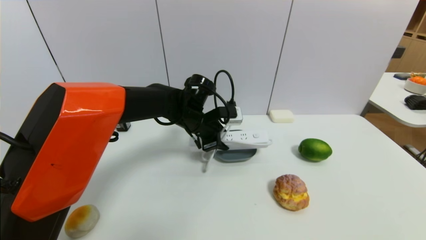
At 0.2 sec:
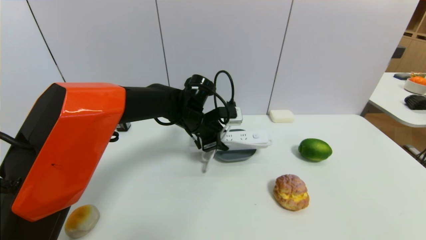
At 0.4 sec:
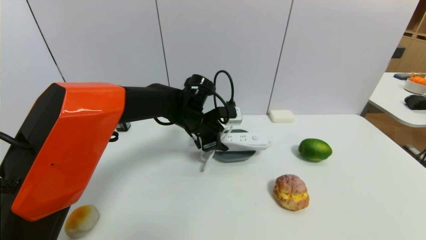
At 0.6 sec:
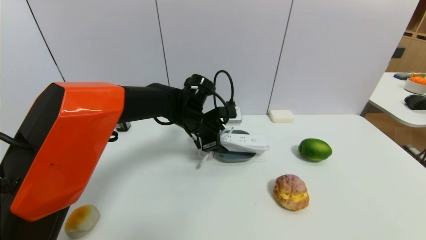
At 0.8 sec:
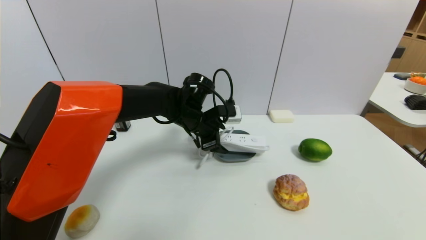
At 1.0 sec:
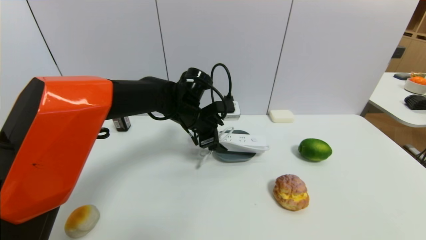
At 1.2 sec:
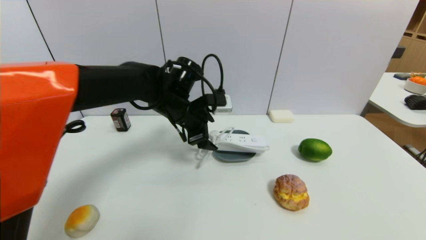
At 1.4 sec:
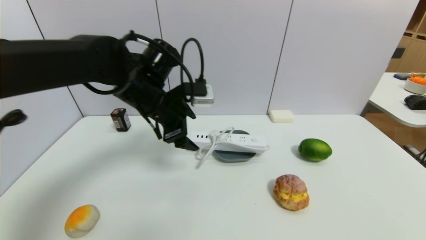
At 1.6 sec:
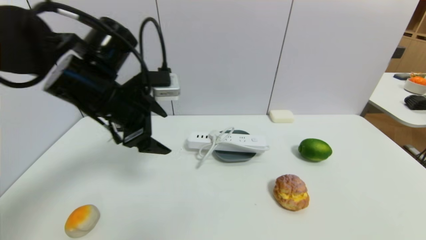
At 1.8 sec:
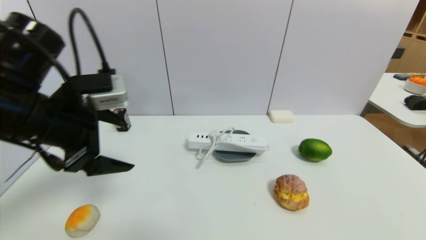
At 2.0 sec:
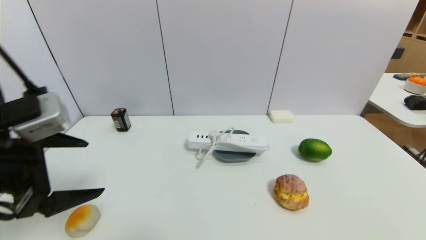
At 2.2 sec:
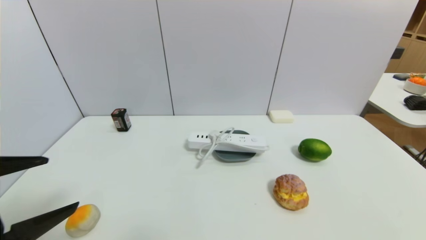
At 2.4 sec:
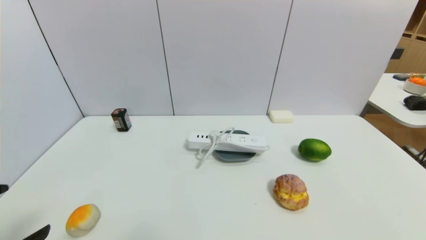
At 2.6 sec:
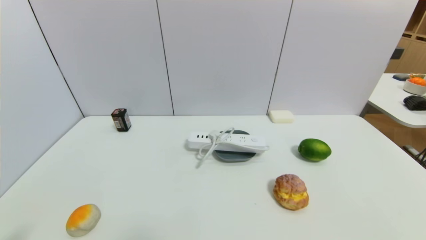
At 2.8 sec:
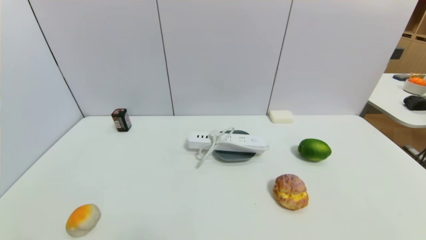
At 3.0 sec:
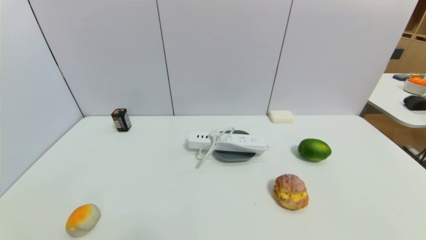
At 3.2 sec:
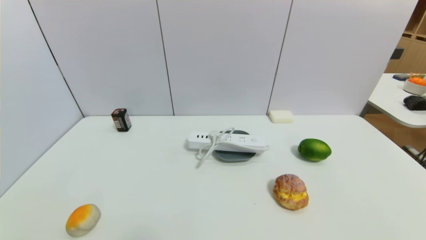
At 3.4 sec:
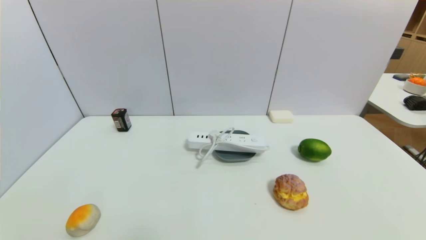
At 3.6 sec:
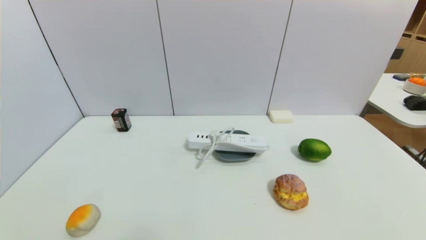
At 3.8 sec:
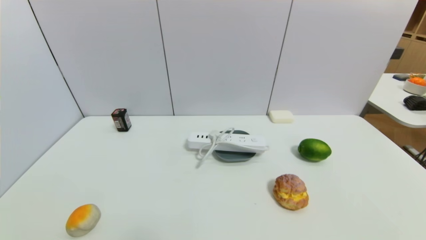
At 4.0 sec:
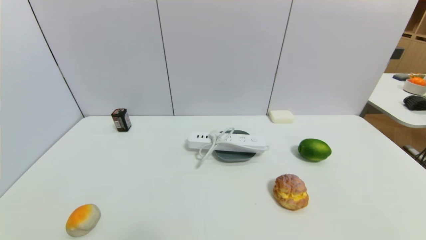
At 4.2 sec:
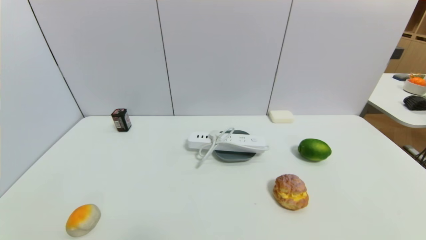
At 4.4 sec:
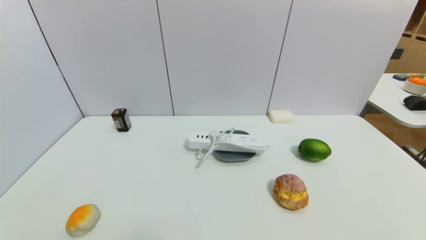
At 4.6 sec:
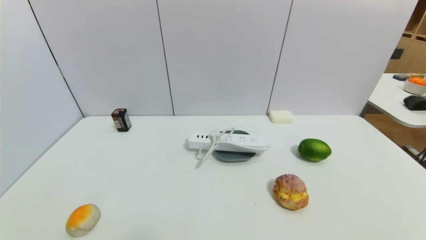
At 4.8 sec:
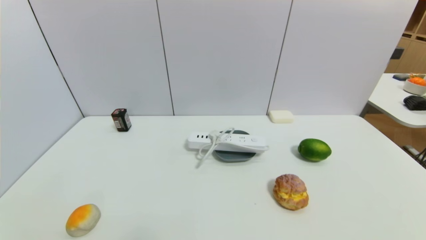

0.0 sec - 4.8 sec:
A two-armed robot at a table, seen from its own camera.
Task of the whole recording: use a gripper to pick the target object and place on the dish.
0.0 sec - 1.6 sec: The left gripper goes about 20 cm to the left, backward and upward, and opens its fingers.
1.6 sec - 3.2 sec: The left gripper is displaced backward, downward and to the left by about 35 cm.
